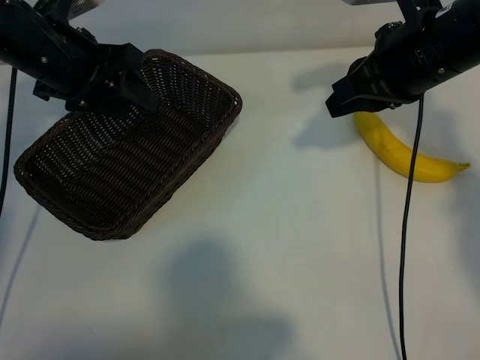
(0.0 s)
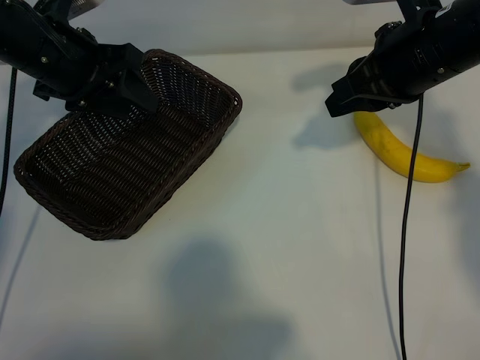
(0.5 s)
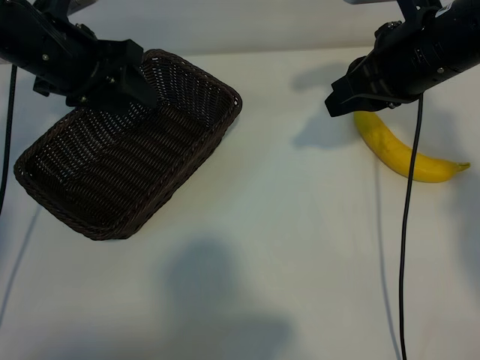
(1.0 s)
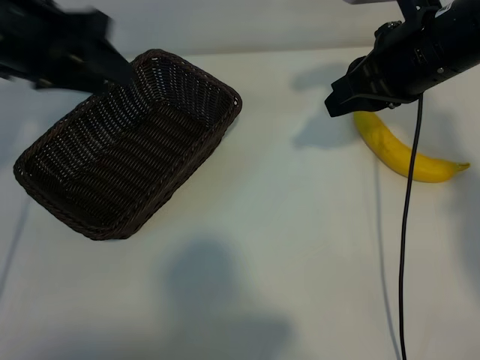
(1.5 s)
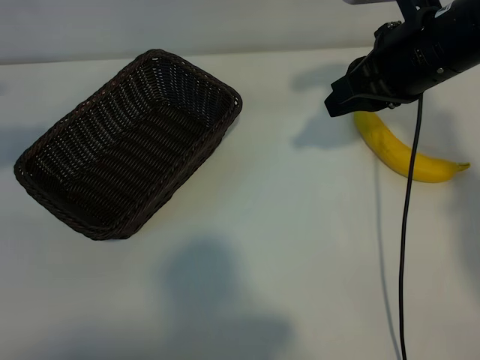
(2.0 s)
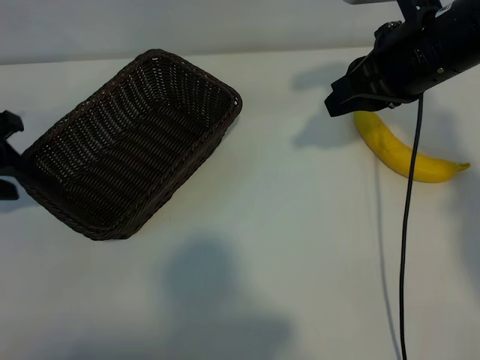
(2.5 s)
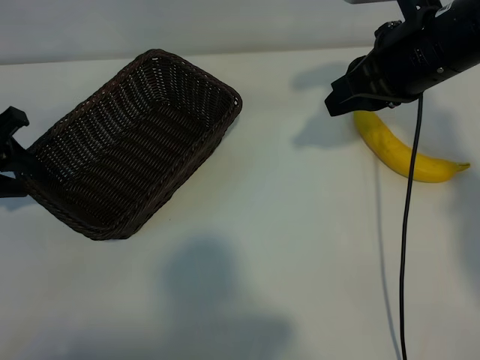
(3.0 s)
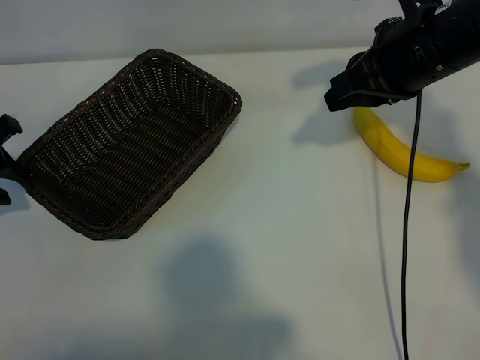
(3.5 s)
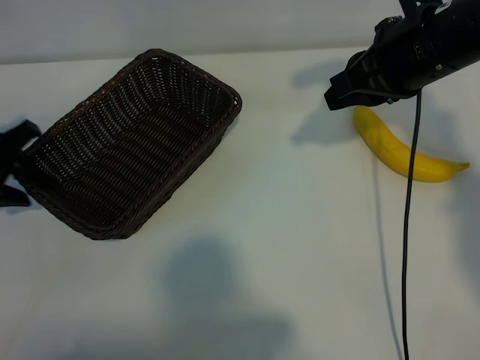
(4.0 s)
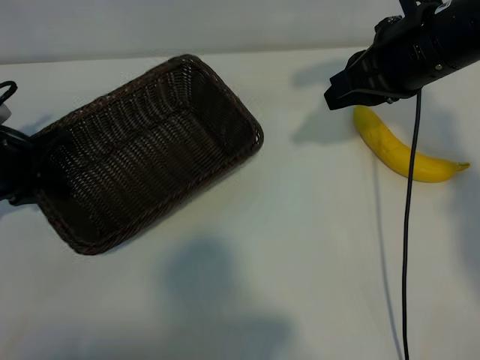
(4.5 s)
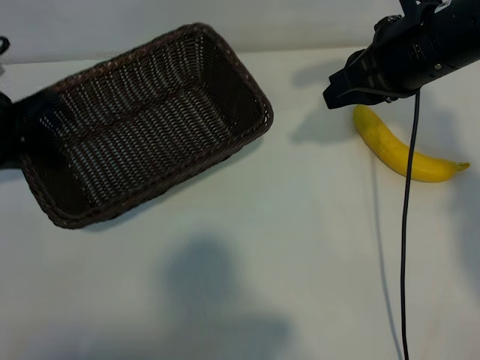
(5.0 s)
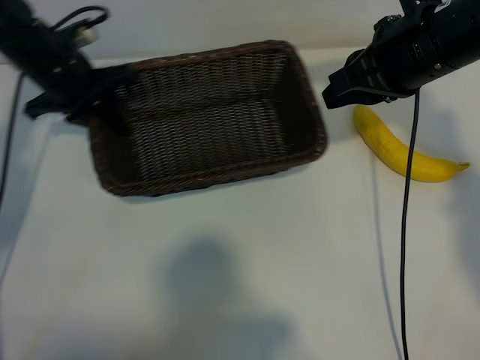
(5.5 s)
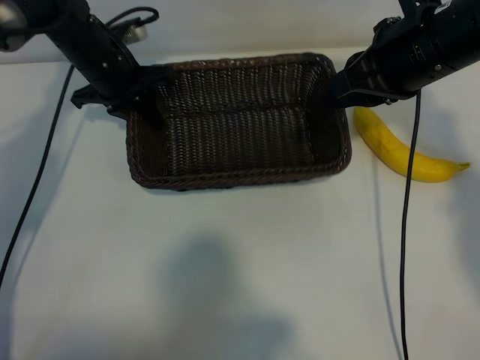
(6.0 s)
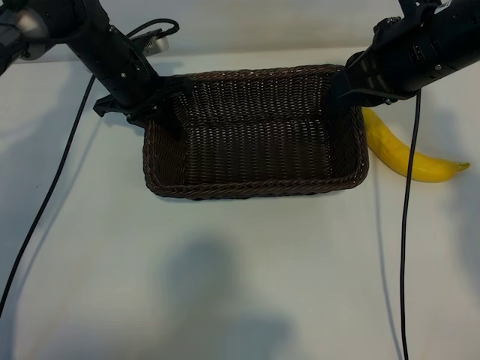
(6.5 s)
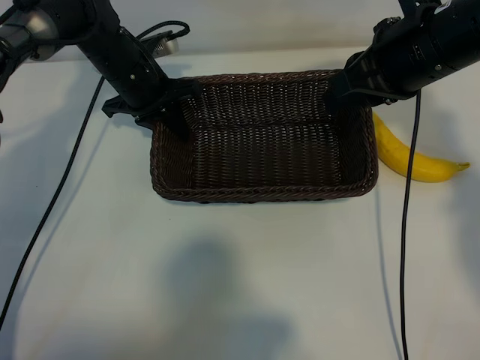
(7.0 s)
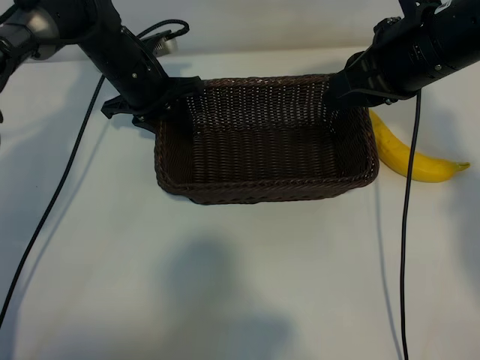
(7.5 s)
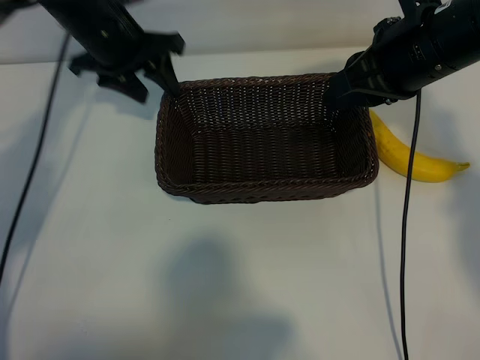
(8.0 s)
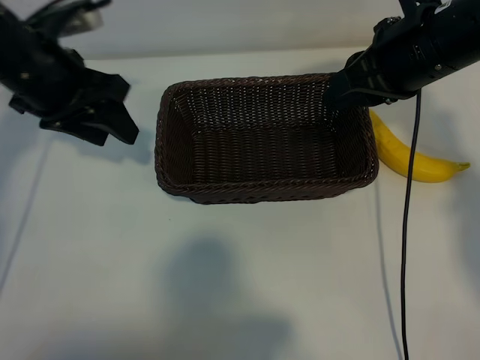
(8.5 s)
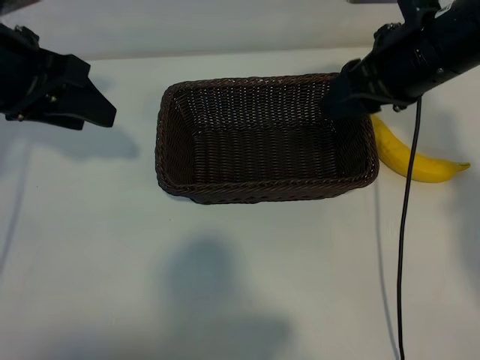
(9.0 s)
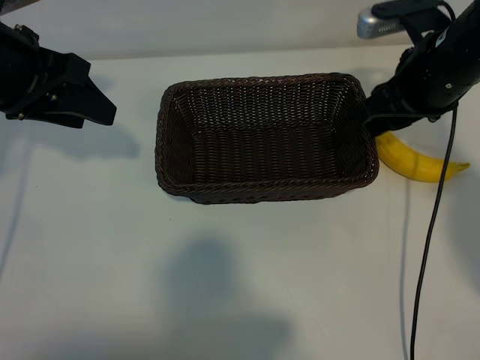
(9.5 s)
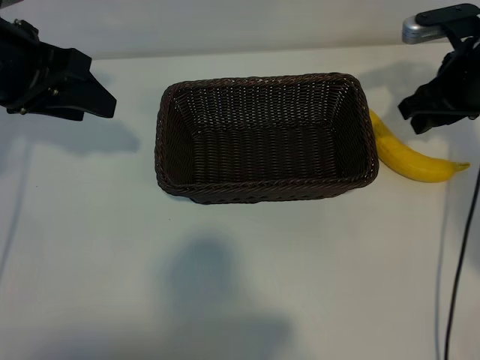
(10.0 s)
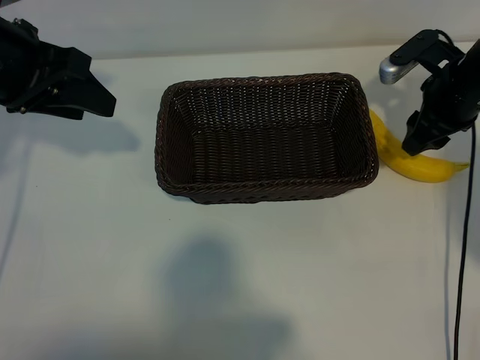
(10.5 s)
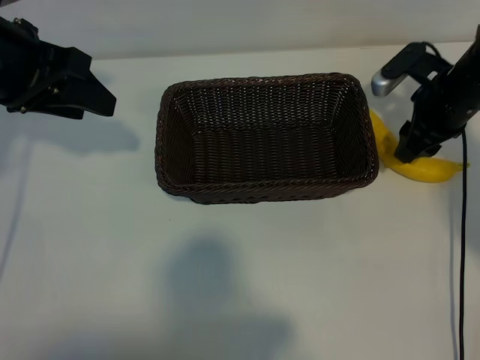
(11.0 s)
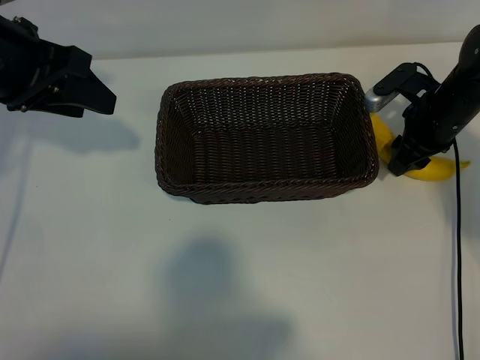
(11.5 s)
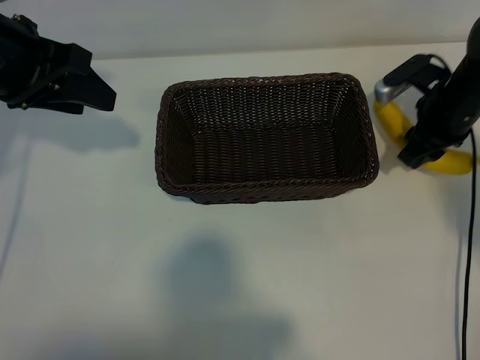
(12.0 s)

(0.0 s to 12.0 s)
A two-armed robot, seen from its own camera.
Task of the whole recording: pick up the banana and put it into the basket.
Step, 1.0 s - 4.0 s: Grasp the basket with the left gripper.
Step, 4.5 s - 7.5 s: Place the basket in the center of the table with the left gripper.
Step, 8.0 s - 11.5 s: Grasp the banana with right gripper.

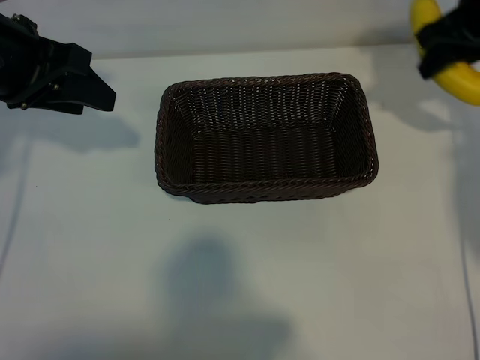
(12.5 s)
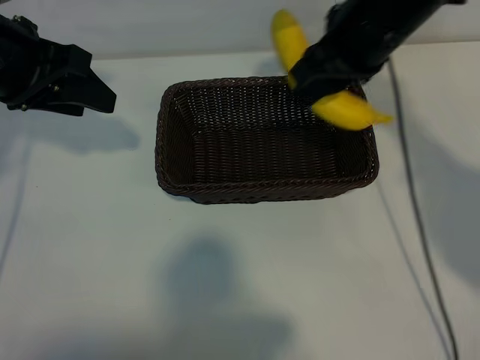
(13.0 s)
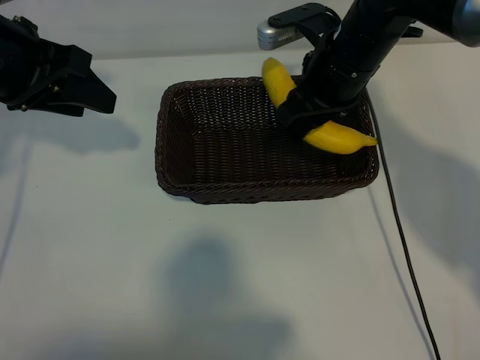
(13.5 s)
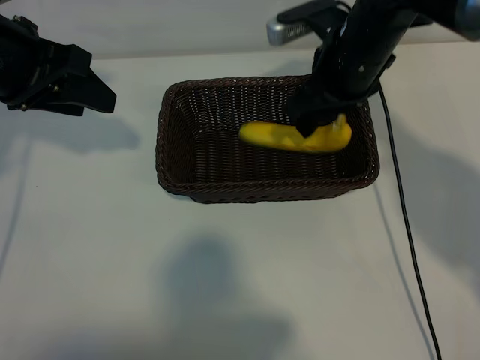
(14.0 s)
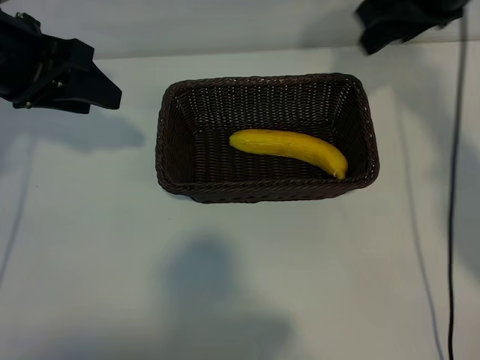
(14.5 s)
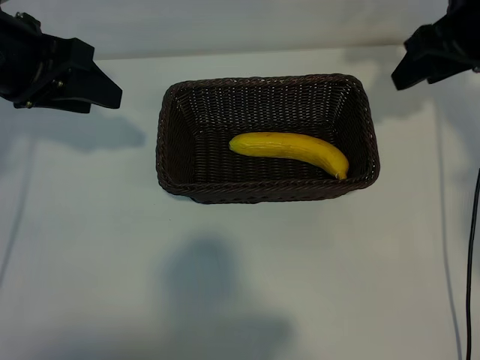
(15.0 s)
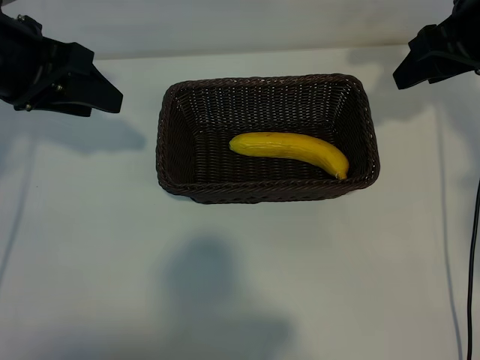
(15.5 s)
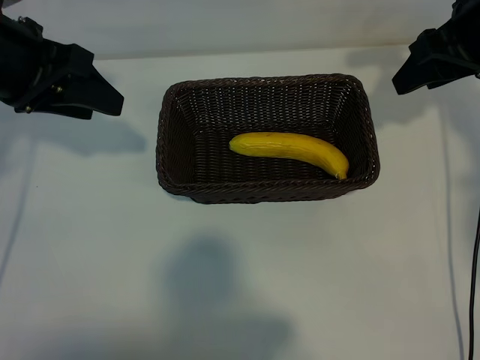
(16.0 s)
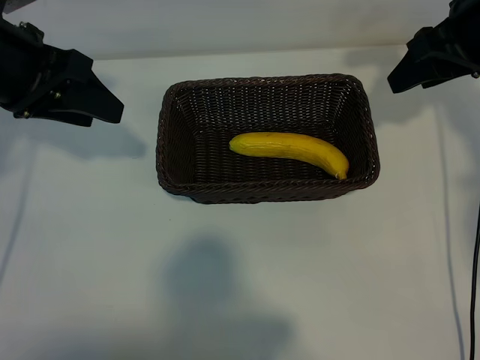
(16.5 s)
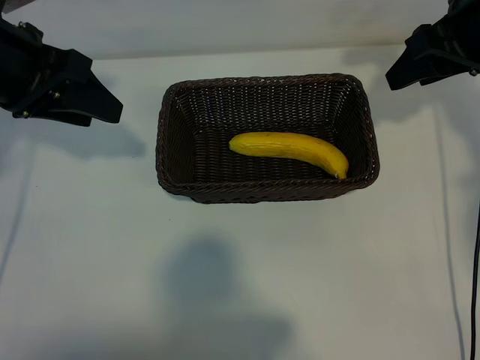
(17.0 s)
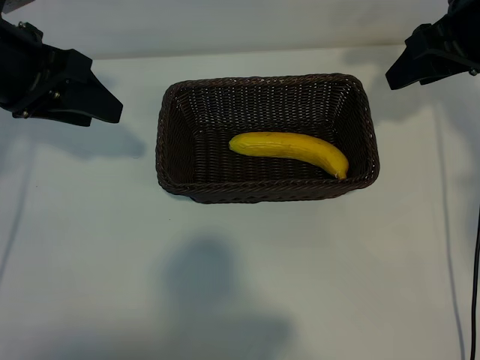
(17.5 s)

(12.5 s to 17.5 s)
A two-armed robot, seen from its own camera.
Task of the whole recording: pick up the banana and put it into the basket.
Step, 12.5 s - 14.0 s: Place the banana in the basket with right gripper.
